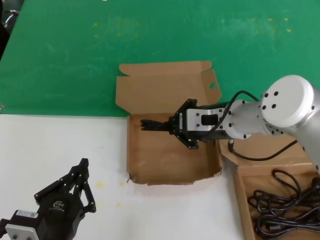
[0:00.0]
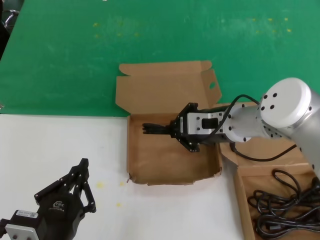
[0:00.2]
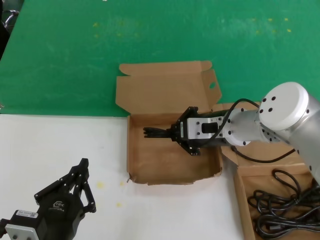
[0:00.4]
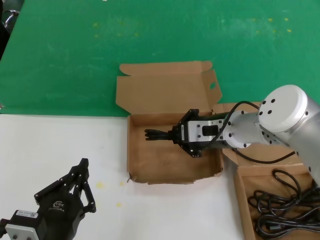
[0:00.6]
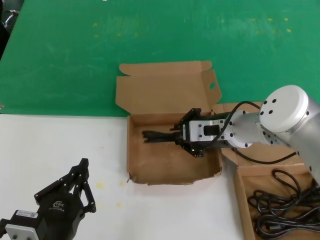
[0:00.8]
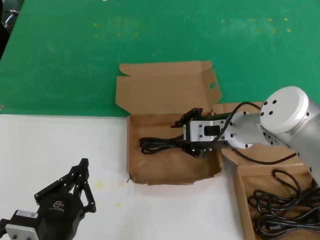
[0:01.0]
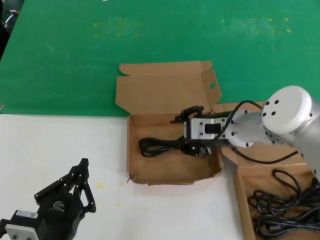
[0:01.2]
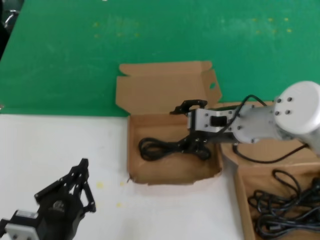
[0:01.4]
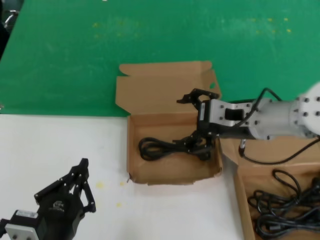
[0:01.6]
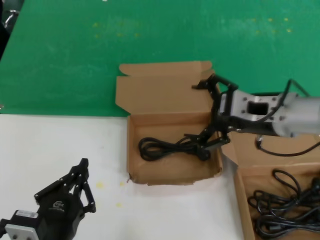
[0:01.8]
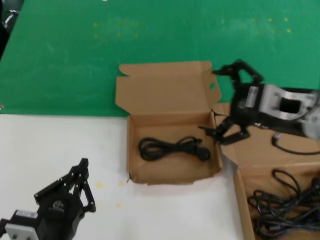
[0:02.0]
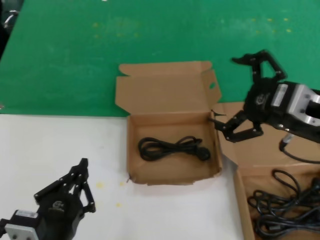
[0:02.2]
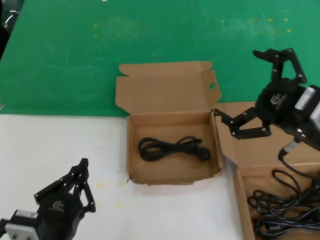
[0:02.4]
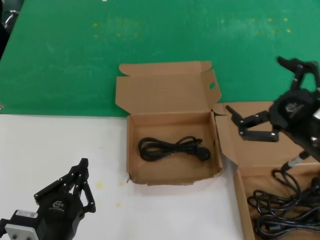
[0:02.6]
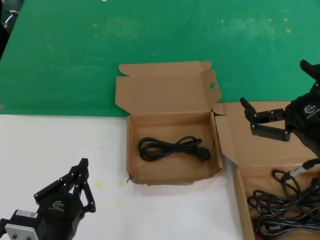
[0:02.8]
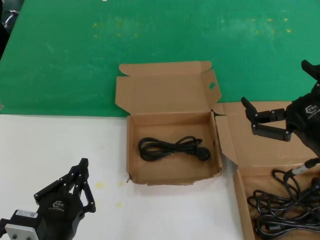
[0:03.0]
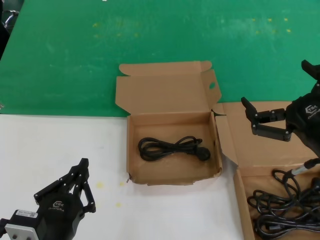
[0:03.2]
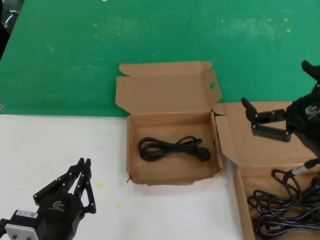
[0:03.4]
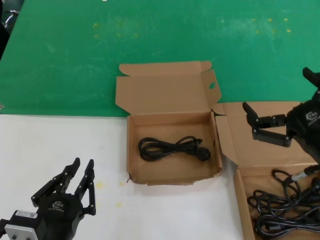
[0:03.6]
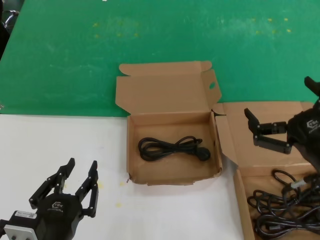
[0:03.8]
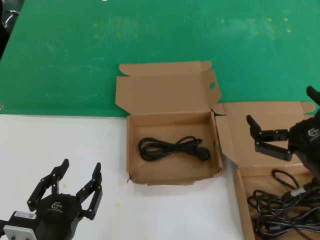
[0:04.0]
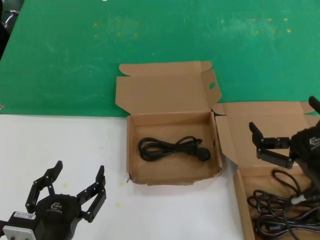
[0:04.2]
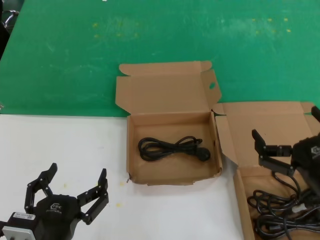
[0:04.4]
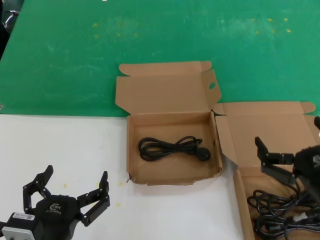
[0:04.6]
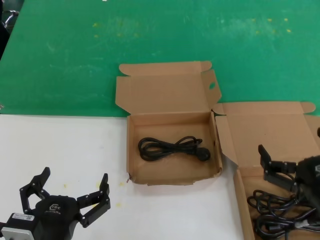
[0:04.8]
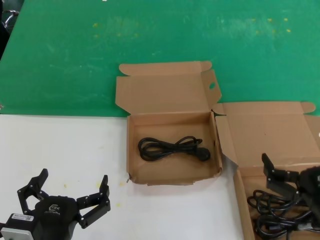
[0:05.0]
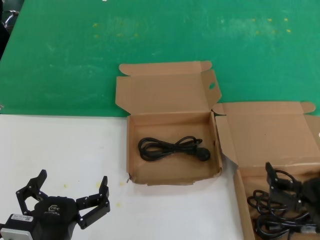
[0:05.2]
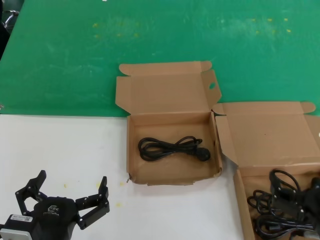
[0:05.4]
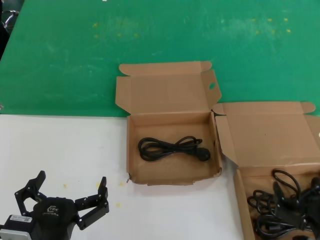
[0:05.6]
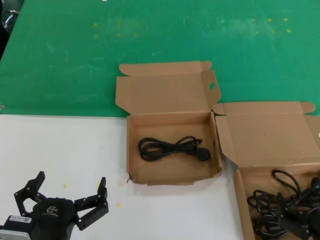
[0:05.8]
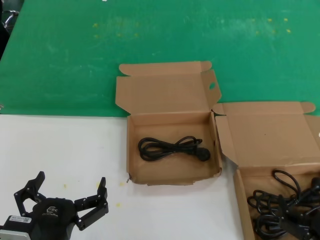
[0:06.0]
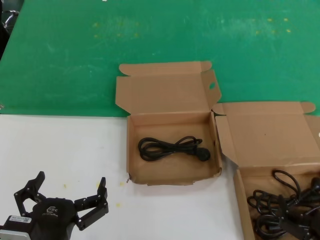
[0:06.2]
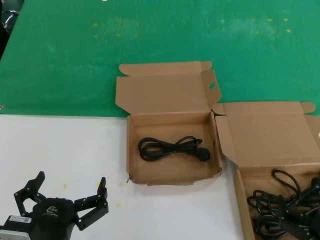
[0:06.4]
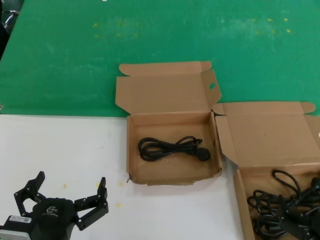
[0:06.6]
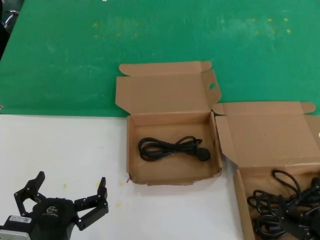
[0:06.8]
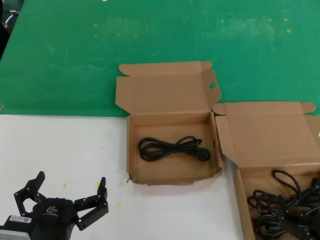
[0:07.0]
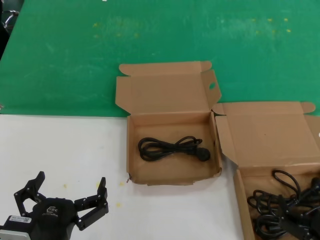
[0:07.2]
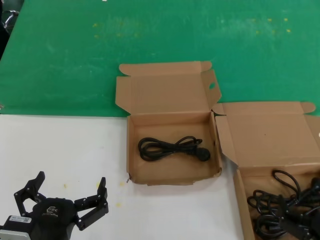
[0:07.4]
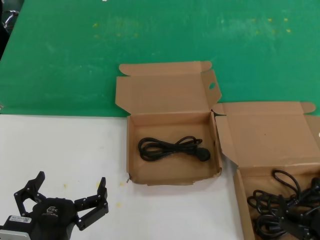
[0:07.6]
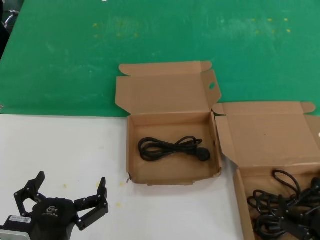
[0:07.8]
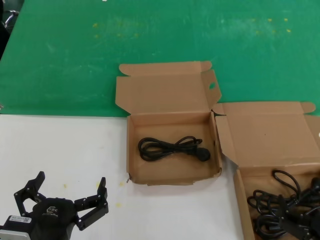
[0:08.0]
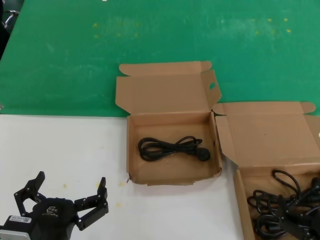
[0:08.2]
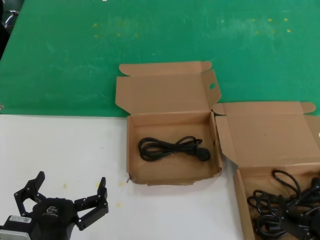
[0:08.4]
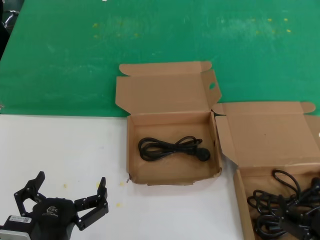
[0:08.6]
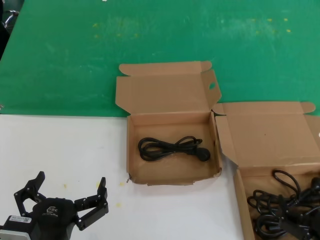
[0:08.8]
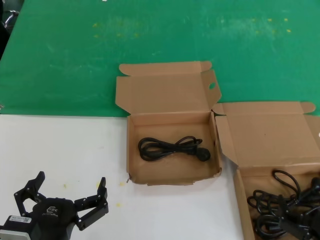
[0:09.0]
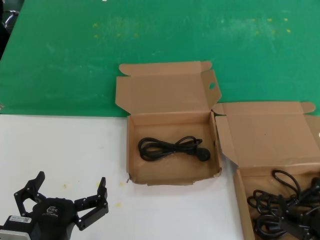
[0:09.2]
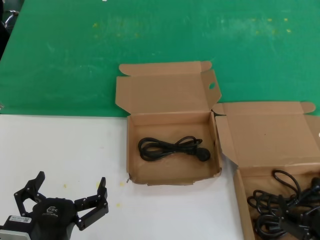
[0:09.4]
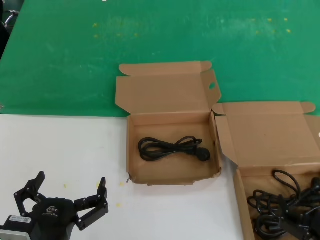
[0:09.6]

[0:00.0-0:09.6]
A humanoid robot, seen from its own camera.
Task of the whole recording: take the parts from the box containing them and put them into an empty box.
0:00.0 to 0:01.6: The hands make only small movements.
0:01.6 to 0:03.2: The right hand heads backward, to the right and downward, covering about 20 cm.
0:03.2 to 0:04.8: The right hand shifts about 10 cm downward.
0:04.8 to 0:06.4: The right hand shifts some 10 cm downward.
0:06.4 to 0:09.6: Both hands stay about where they are.

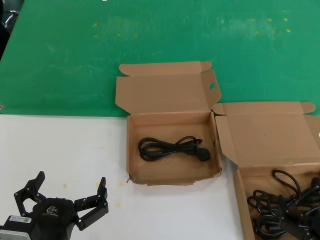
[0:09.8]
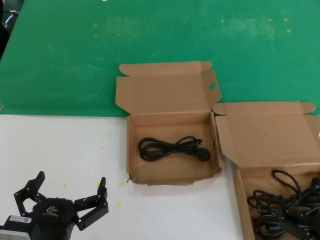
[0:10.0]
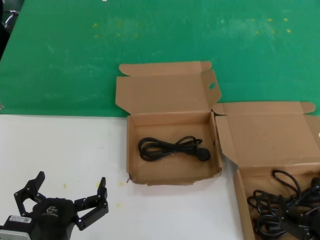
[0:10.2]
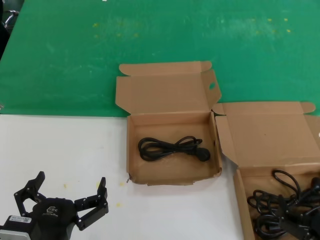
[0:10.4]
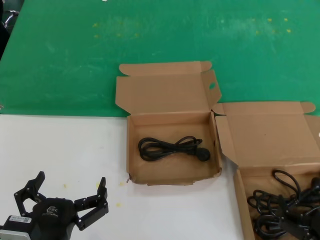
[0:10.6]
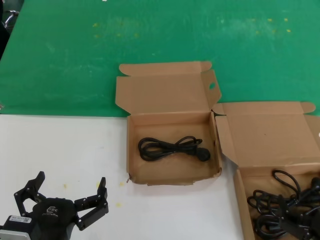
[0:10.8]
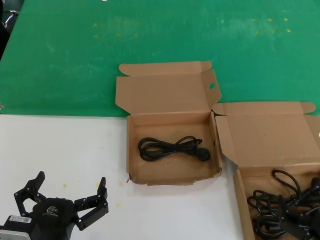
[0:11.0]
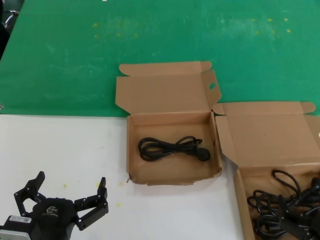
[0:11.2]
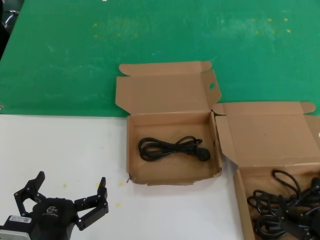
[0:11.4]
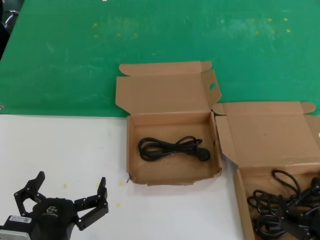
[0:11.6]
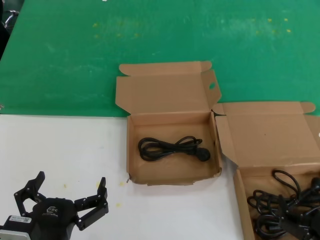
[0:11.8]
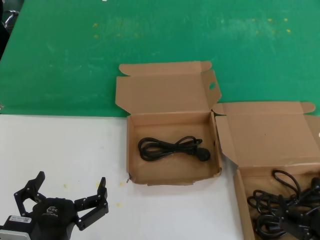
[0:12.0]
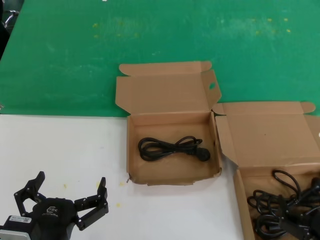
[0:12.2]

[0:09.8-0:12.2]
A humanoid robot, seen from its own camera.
Task of the whole recording: take the parts from the box containing them and put them into an empty box.
0:09.8 to 0:12.2: Neither hand changes place.

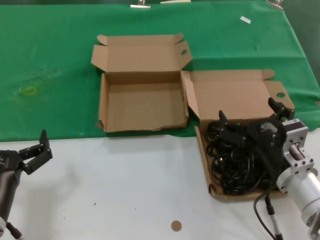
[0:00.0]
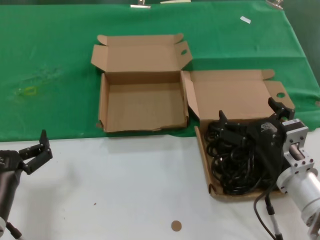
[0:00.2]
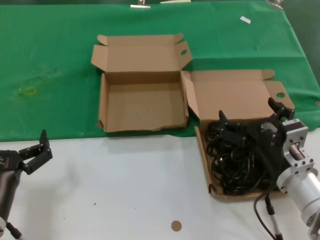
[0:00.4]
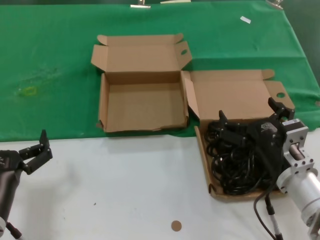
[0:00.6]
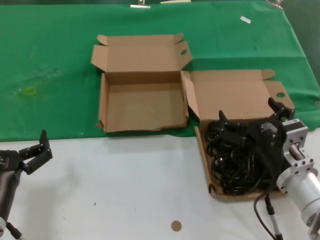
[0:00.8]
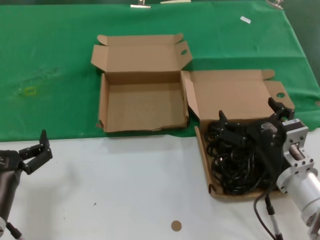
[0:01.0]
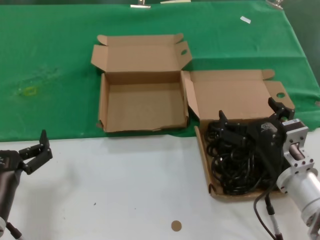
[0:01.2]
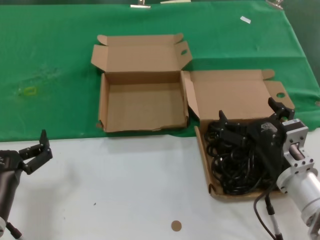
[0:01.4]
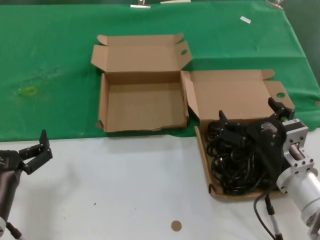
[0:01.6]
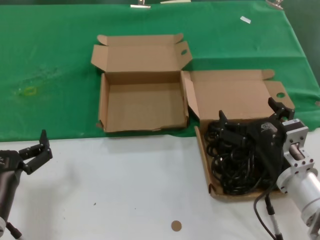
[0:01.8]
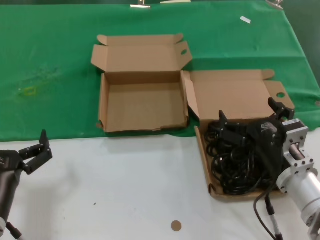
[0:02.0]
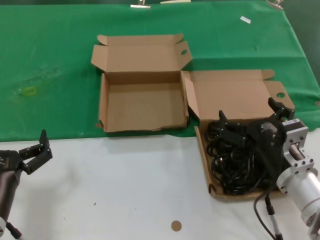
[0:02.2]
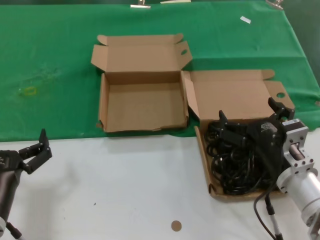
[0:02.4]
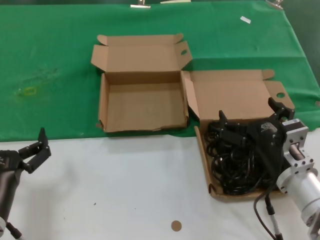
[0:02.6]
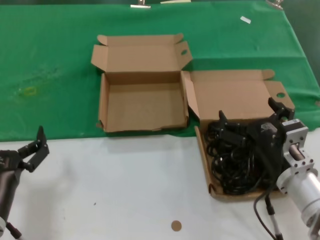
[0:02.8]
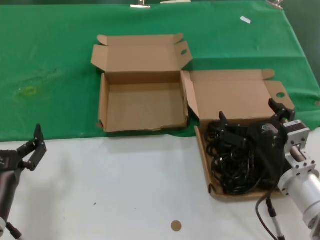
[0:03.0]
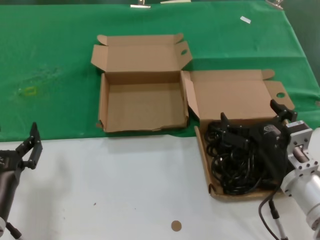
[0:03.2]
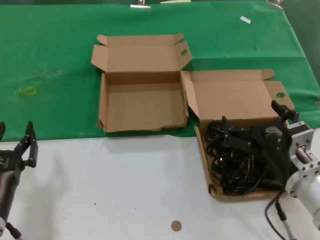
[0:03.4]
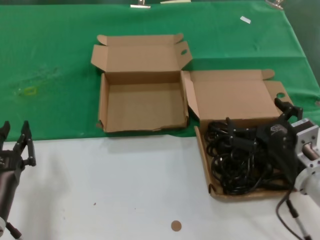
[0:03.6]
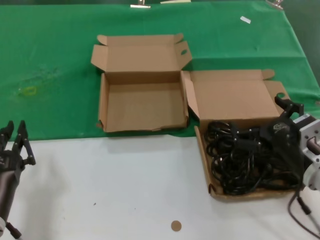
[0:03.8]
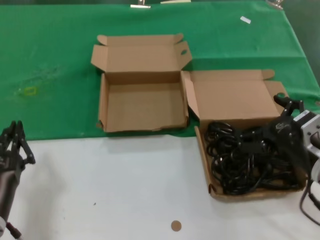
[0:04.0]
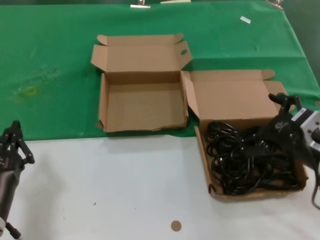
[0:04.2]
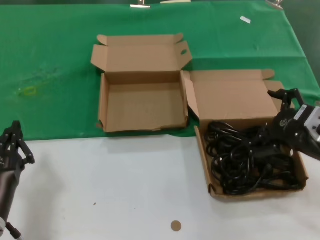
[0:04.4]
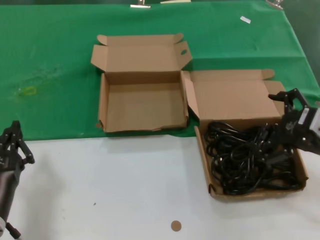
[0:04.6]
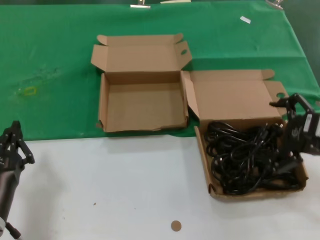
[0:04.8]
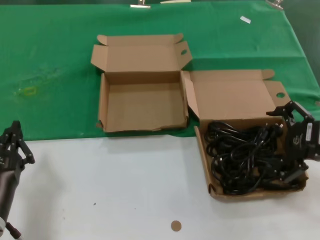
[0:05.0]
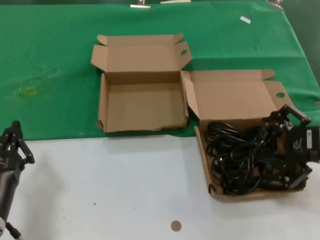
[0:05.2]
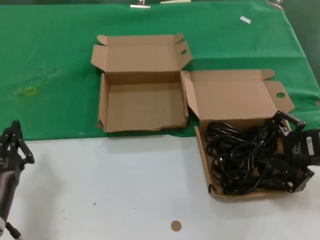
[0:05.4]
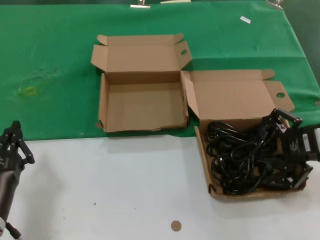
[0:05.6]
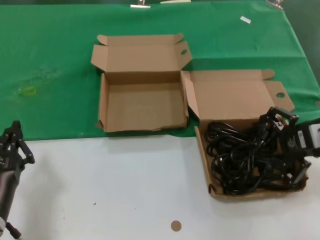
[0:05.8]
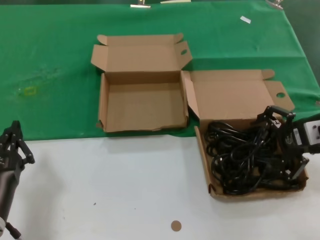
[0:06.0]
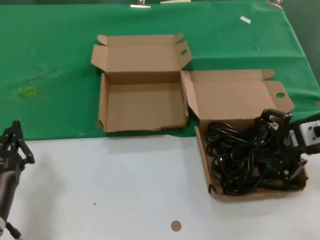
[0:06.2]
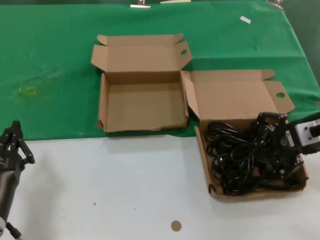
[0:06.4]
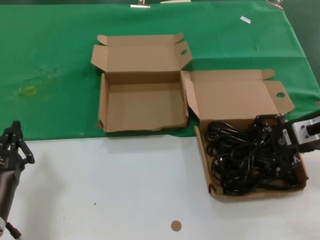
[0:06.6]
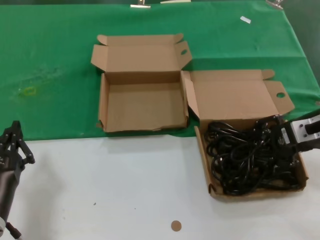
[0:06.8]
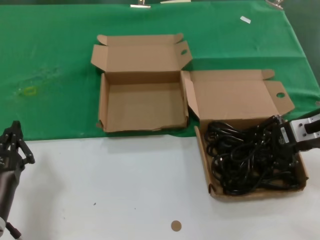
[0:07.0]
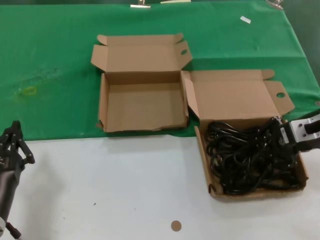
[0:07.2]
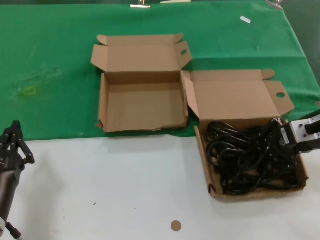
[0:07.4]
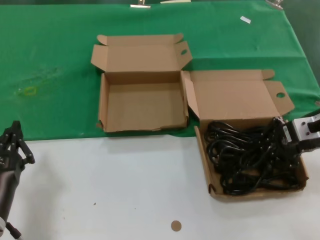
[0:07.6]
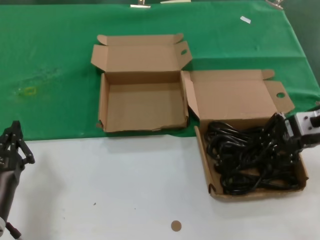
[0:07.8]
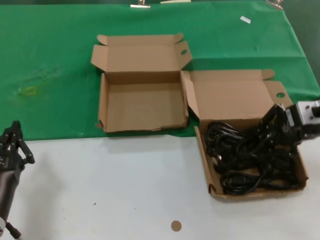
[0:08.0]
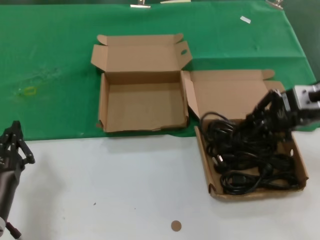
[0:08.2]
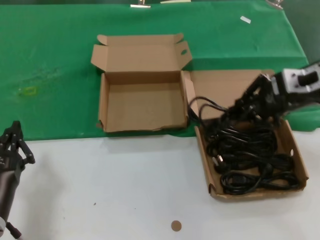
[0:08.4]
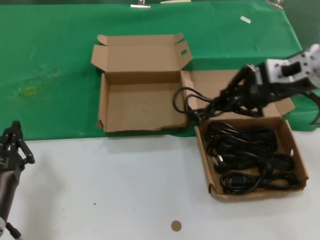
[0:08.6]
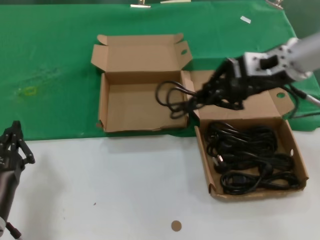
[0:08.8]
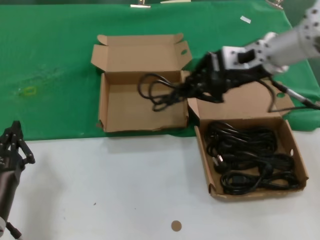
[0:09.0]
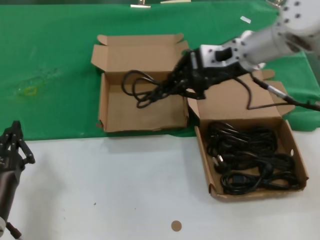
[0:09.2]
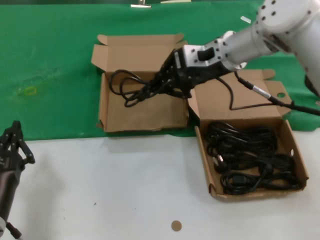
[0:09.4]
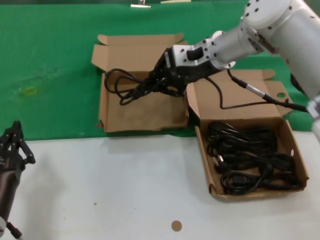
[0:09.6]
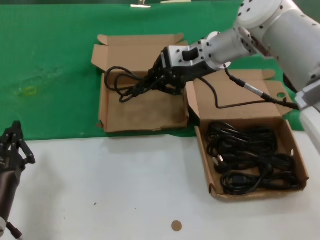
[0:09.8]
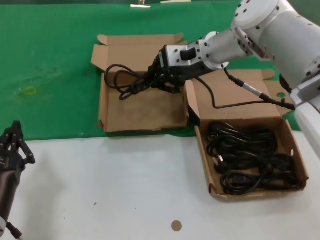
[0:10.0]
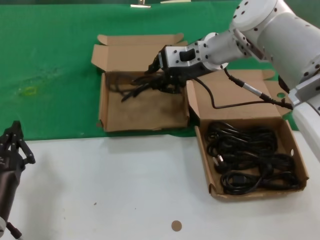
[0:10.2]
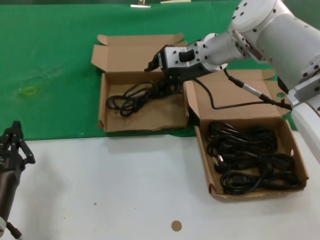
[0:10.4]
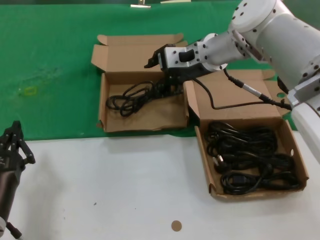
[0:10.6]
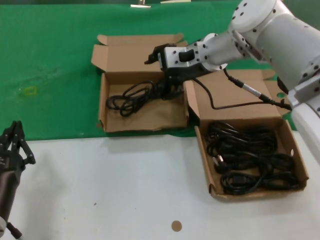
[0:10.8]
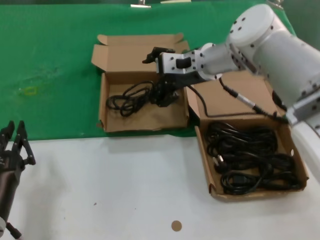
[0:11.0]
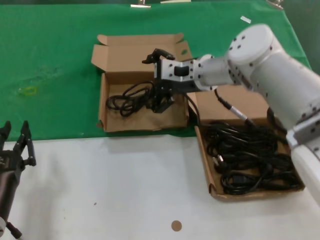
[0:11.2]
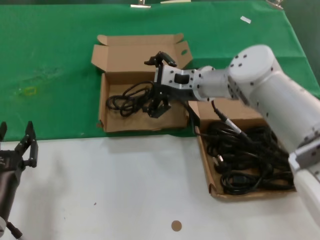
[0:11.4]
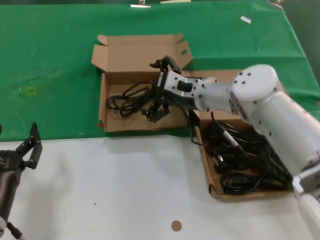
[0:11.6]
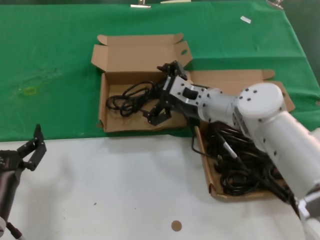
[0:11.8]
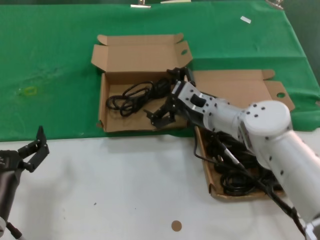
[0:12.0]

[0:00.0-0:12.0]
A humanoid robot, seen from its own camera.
Task of the whole recording: take the parts from the box containing them and put them into an empty box.
Step, 0:00.0 to 0:07.4: Grasp the data cable.
Step, 0:07.6 to 0:10.2: Place the data cable in the another box.
0:00.0 to 0:03.0: Both hands stay about where they are.
0:03.0 to 0:04.4: The right hand goes about 10 cm to the right and upward.
0:04.4 to 0:06.0: The right hand is displaced forward and upward by roughly 10 cm.
0:06.0 to 0:07.6: The hands make only small movements.
0:07.6 to 0:09.0: The right hand is displaced to the left, upward and forward by about 15 cm.
0:09.0 to 0:10.4: The right hand heads to the left and forward, covering about 10 cm.
0:10.4 to 0:12.0: The right hand is displaced downward and backward by approximately 15 cm.
